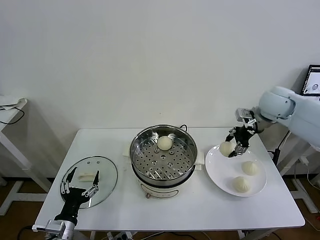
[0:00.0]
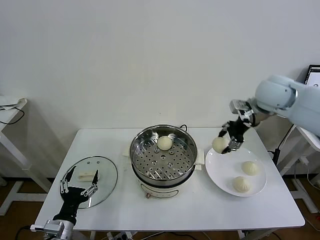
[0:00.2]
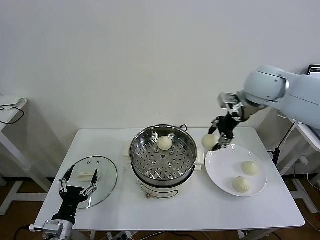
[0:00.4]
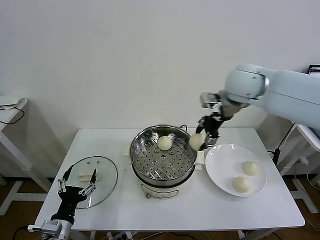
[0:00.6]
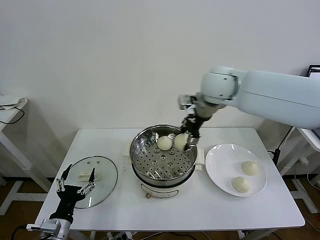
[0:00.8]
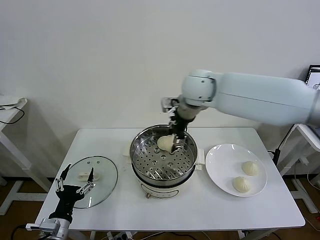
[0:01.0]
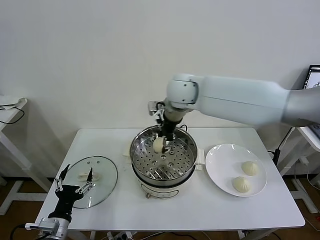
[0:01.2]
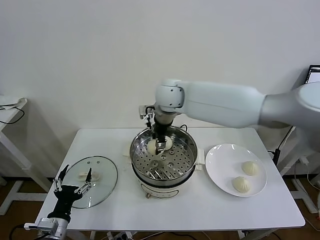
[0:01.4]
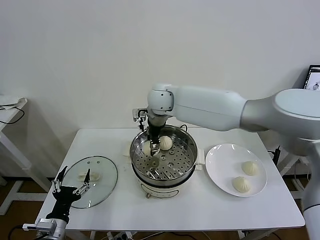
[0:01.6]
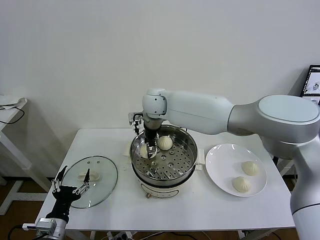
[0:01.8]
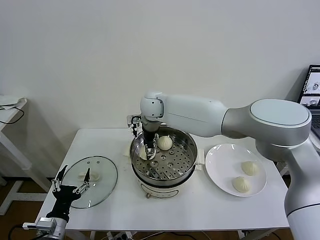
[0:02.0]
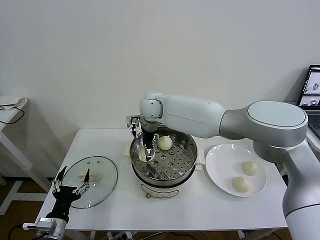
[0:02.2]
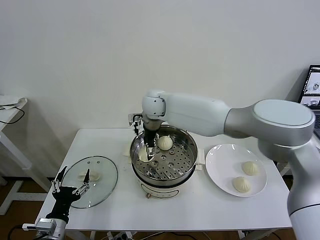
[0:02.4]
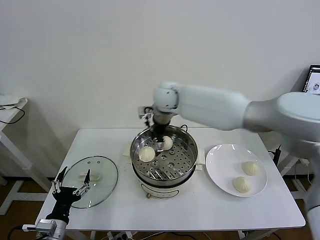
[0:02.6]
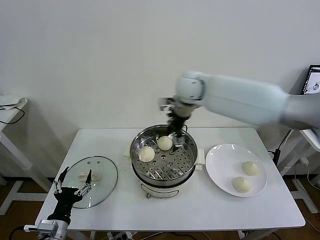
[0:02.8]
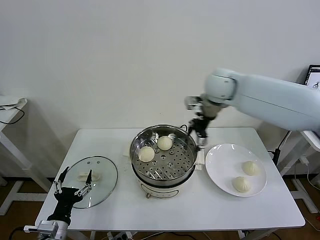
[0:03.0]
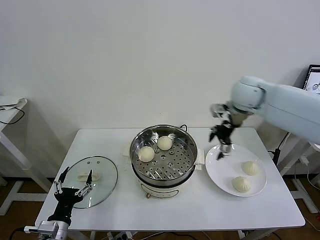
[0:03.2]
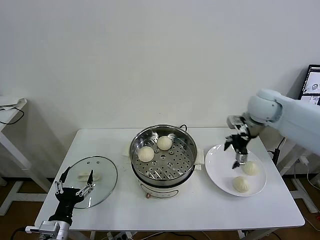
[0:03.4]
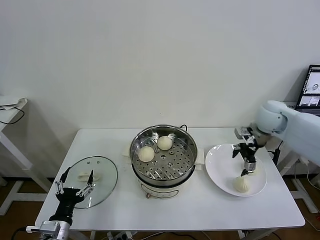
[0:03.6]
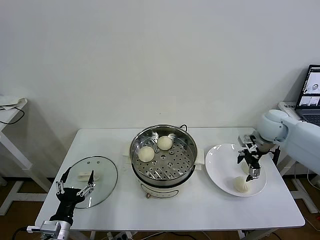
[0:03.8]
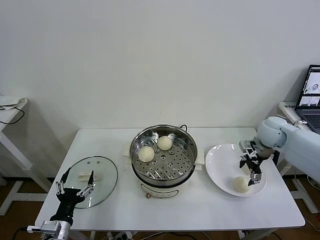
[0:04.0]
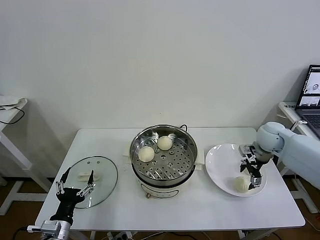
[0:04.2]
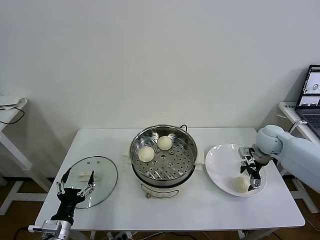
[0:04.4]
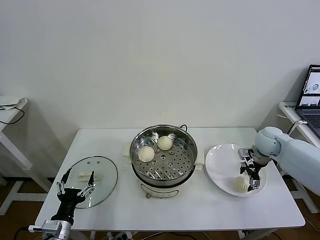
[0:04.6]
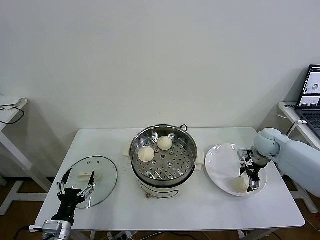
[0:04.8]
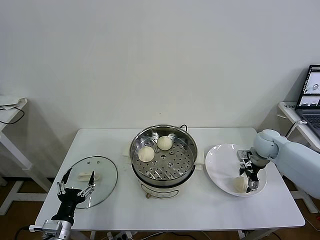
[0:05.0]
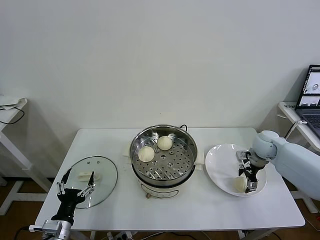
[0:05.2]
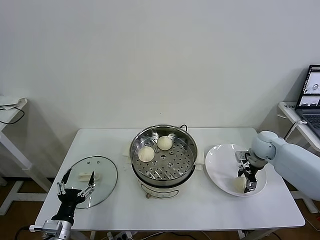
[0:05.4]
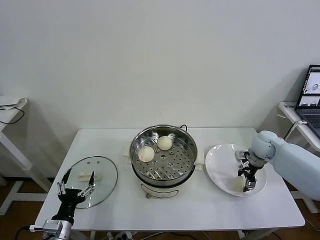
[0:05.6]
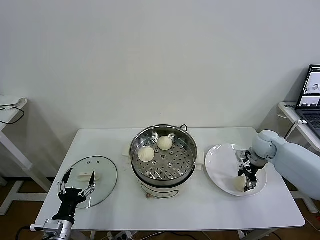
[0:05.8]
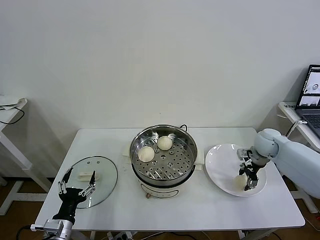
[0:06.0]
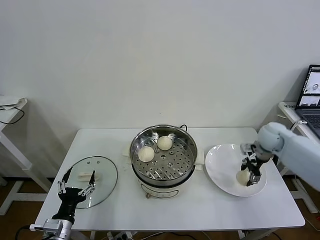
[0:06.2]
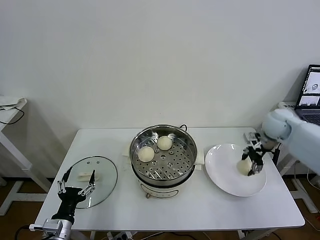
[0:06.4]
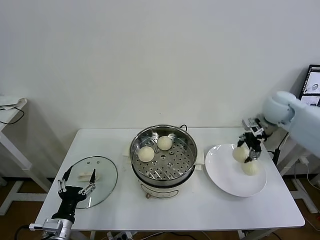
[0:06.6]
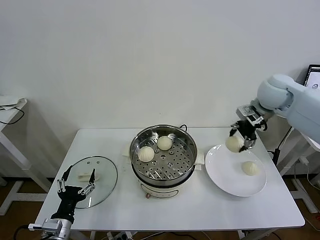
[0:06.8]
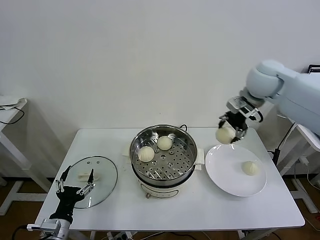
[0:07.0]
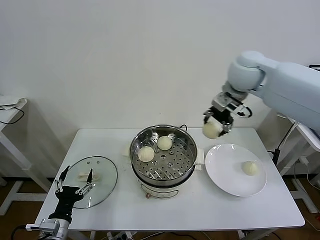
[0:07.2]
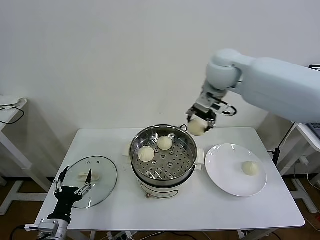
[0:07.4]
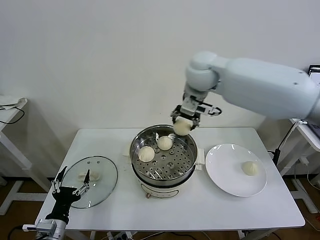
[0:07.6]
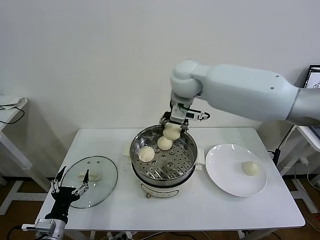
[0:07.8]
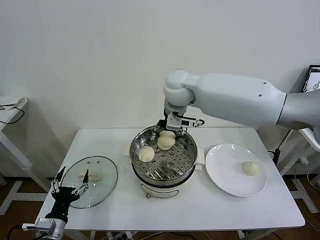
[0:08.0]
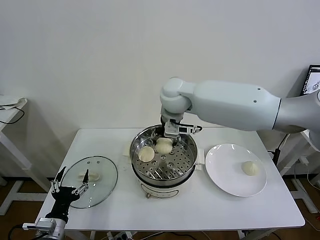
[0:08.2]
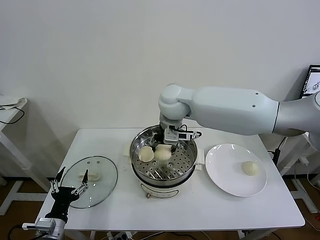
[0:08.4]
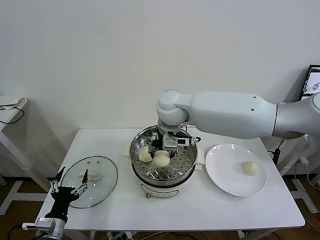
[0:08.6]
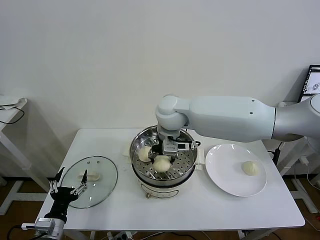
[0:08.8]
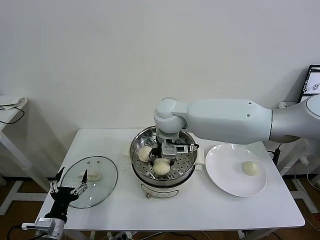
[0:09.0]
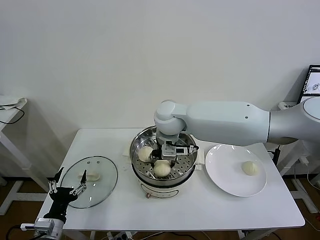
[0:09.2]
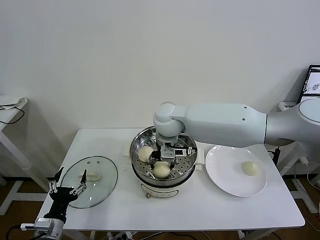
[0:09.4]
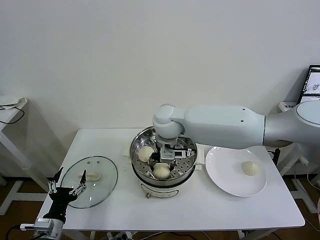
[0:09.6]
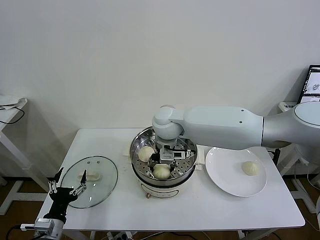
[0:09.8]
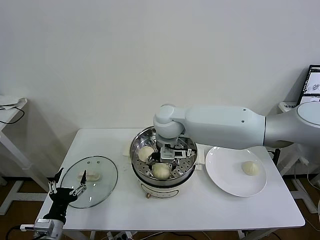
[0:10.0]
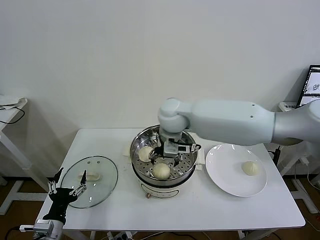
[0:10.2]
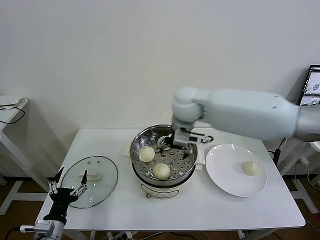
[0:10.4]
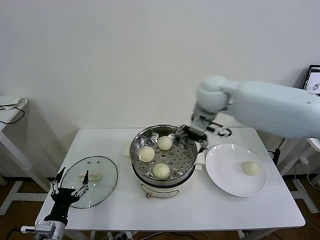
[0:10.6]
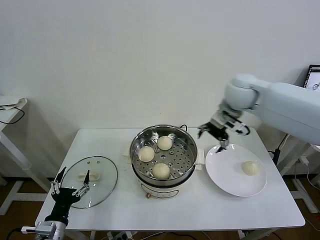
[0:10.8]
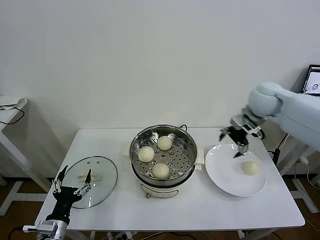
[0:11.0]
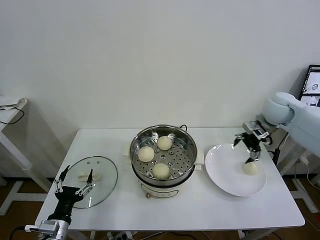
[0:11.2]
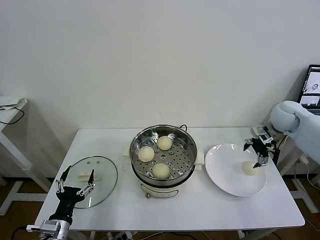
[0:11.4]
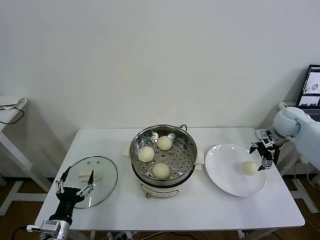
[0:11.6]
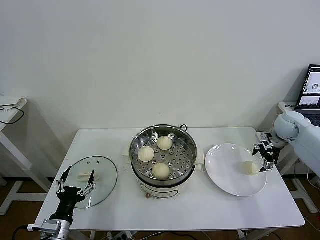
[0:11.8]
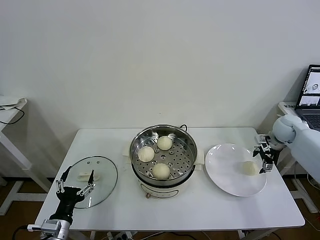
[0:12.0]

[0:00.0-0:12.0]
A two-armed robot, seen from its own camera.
Task of the whole recording: take steamed baozi put them in steamer then cover it.
Step, 0.0 to 2.4 s: Place the baozi on the steamer with right gripper.
Step, 2.6 to 5.8 s: Grasp the baozi in the plate with right gripper.
Step, 6.0 to 10.0 s: Place the baozi on the steamer with right gripper.
0.0 to 1.6 s: The right gripper goes about 35 cm to the left.
1.6 to 3.0 s: The right gripper heads to the right, covering approximately 20 cm, and opens up.
3.0 to 4.4 s: The right gripper moves to the right and downward, some 25 cm.
4.4 to 6.0 s: The right gripper closes.
6.0 to 7.6 s: The right gripper is displaced to the left and upward by approximately 40 cm.
7.6 to 9.0 s: The right gripper travels downward, to the left and backward by some 15 cm.
9.0 to 10.4 s: The right gripper shifts about 5 cm to the right, and opens its fingers.
10.4 to 12.0 s: The right gripper shifts some 40 cm to the right.

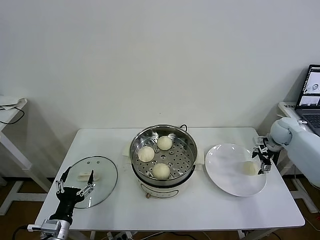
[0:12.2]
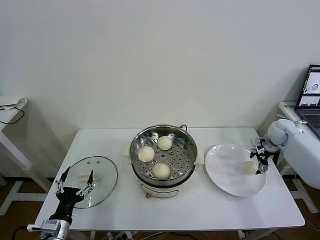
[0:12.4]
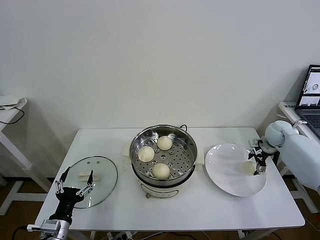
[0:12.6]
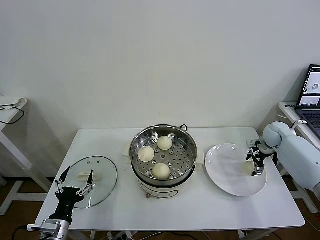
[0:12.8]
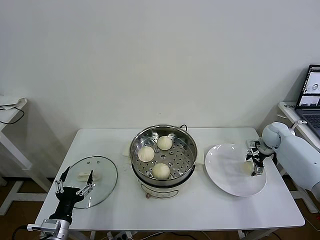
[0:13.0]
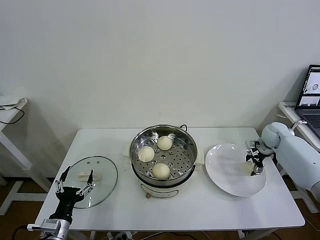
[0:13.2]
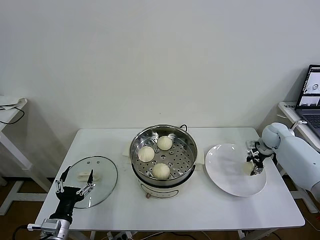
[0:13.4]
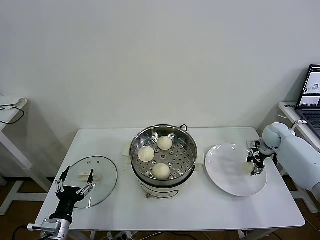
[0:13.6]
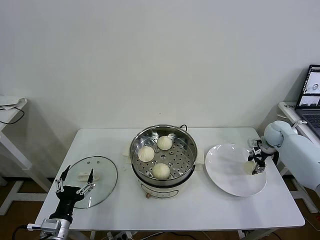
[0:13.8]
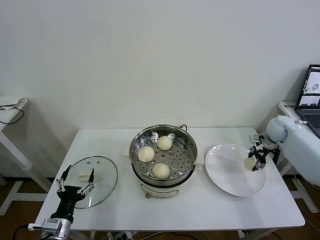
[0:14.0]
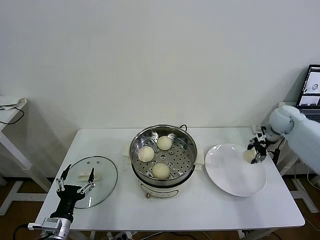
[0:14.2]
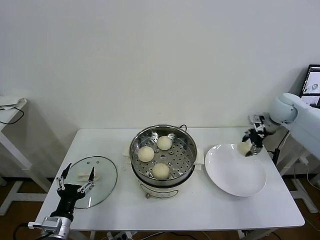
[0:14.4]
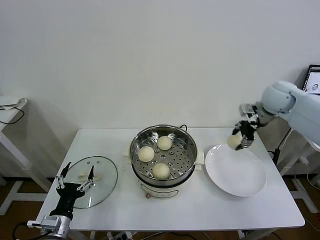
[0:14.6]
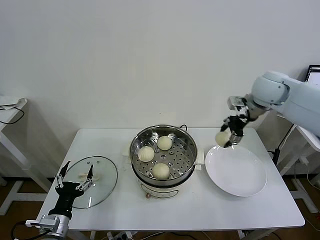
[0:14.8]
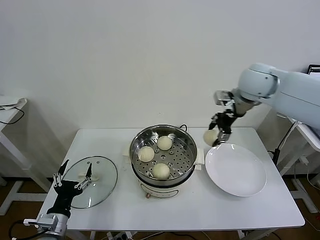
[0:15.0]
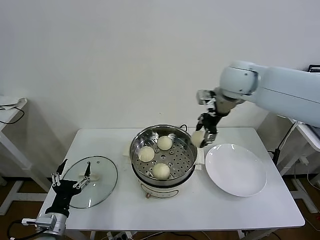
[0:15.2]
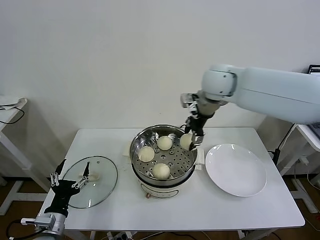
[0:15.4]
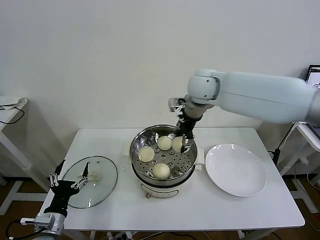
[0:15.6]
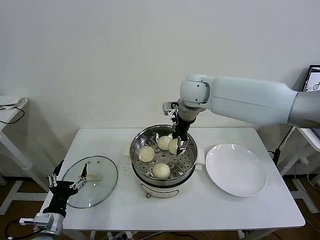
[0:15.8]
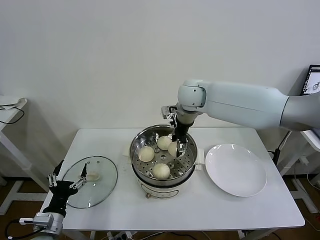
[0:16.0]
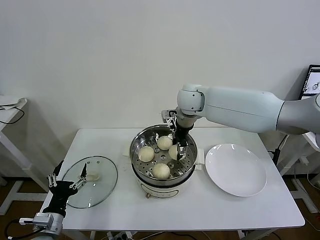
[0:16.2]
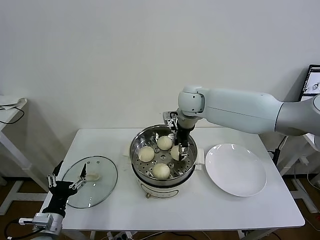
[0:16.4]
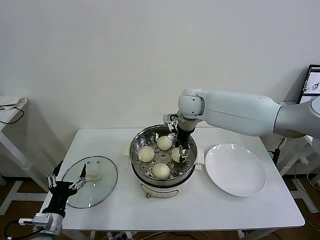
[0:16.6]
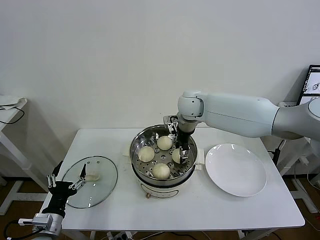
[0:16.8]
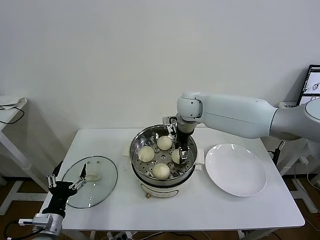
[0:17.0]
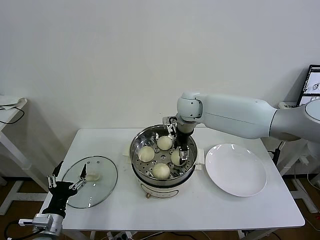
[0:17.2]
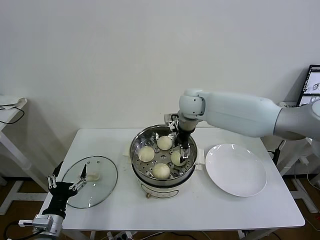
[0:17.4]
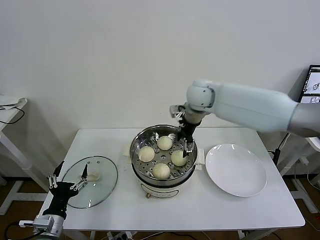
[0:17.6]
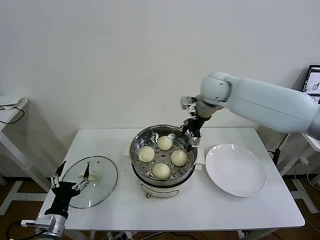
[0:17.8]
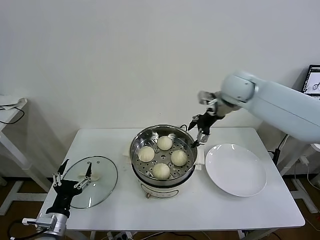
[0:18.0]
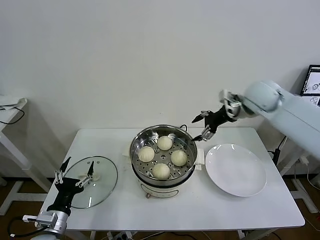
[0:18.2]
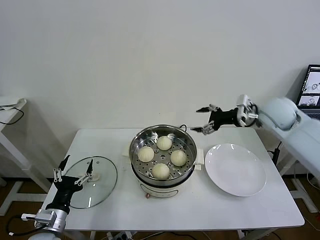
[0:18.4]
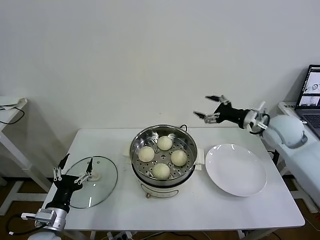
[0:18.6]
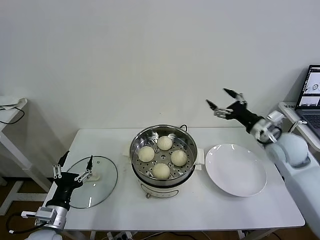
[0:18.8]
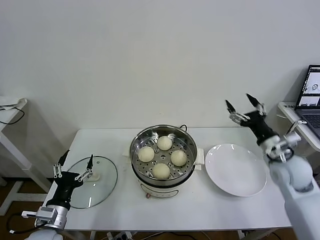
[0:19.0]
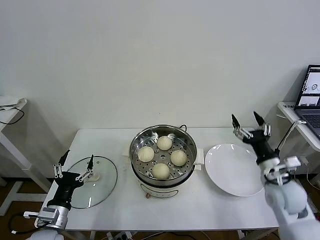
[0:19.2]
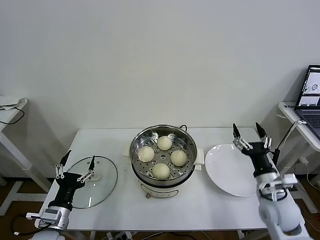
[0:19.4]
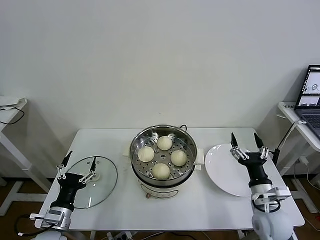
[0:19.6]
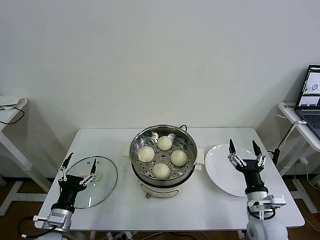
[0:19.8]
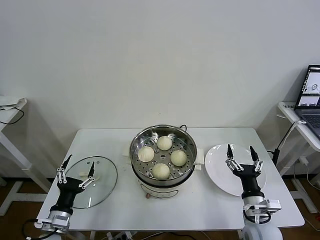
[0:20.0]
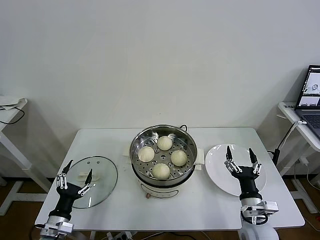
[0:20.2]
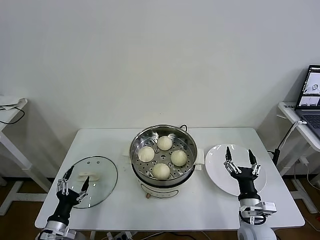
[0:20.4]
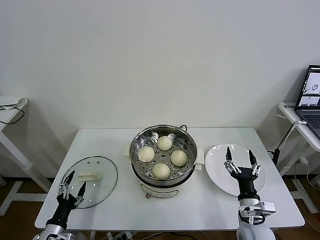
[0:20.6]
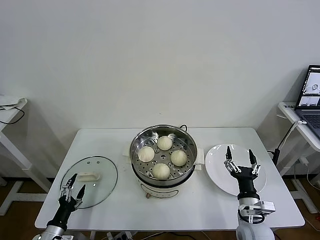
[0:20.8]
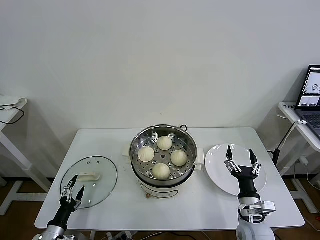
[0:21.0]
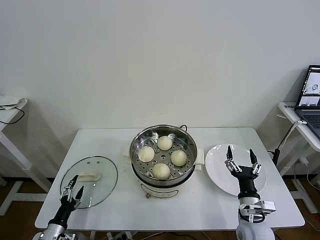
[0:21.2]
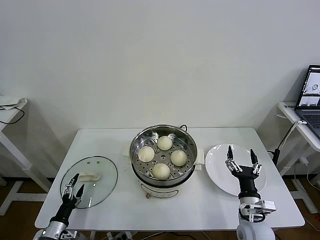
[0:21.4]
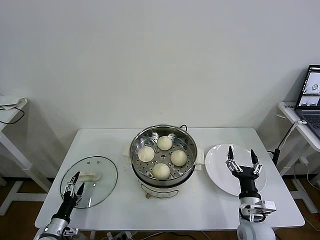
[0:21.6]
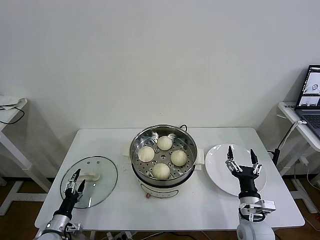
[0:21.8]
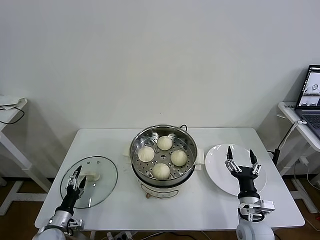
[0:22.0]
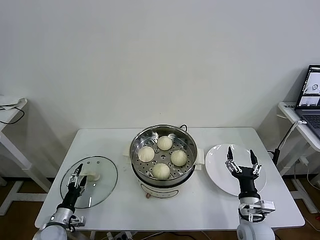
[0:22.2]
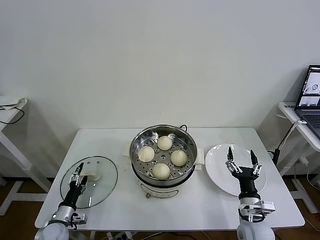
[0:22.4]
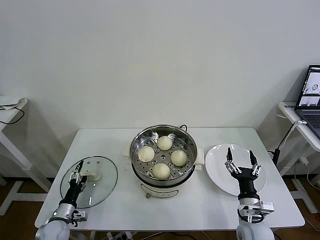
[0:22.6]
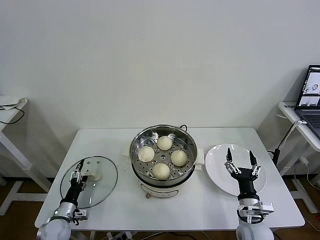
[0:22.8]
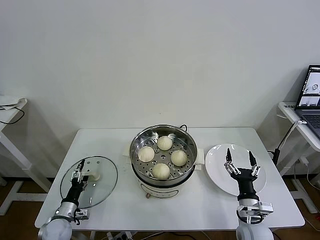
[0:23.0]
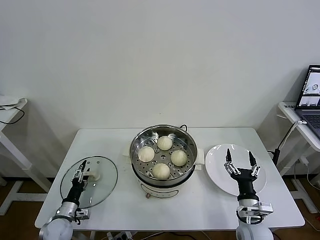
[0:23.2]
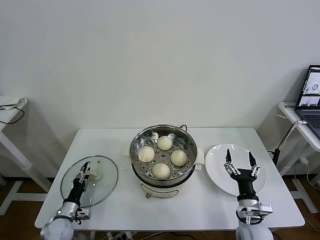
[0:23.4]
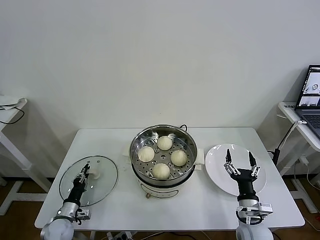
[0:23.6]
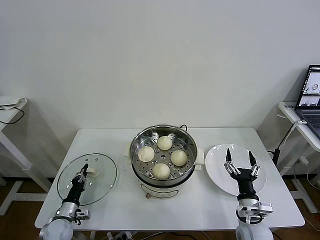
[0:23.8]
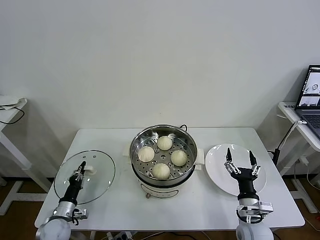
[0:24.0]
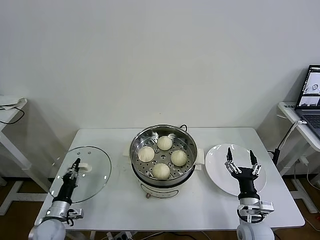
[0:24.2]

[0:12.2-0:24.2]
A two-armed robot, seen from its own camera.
Task of the whole recording: take steamed baozi put them in steamer then cover it.
Step, 14.0 to 17.4 s: Place the baozi on the steamer with right gripper.
Step, 17.6 to 23.8 s: Grasp the pot lid with left gripper.
12.2 to 13.8 s: The right gripper closes up.
13.8 to 15.2 s: The right gripper is displaced to the left and upward by roughly 35 cm.
15.2 to 16.6 s: The right gripper goes roughly 15 cm downward and to the left.
16.6 to 18.2 s: The right gripper shifts approximately 20 cm to the right, and opens.
18.2 to 19.8 s: The right gripper shifts approximately 40 cm backward and downward.
19.8 to 21.2 s: The left gripper moves downward and to the left, approximately 15 cm.
21.2 to 22.6 s: The left gripper moves forward, approximately 10 cm.
22.6 to 24.2 s: The left gripper closes its fingers.
